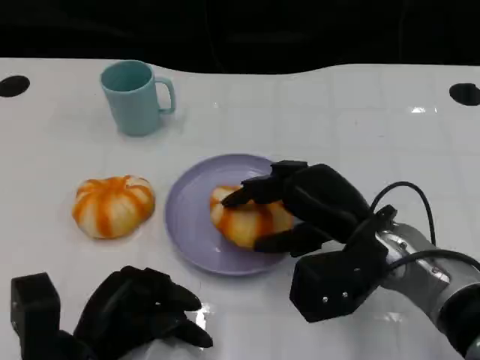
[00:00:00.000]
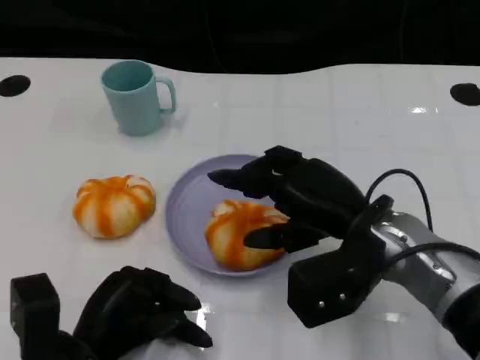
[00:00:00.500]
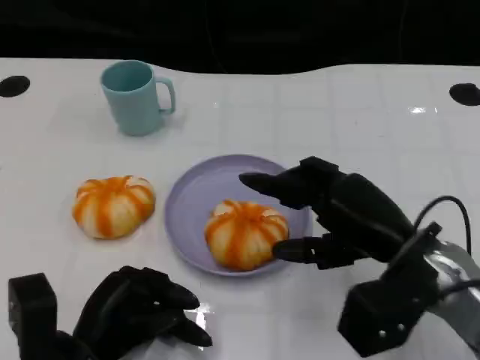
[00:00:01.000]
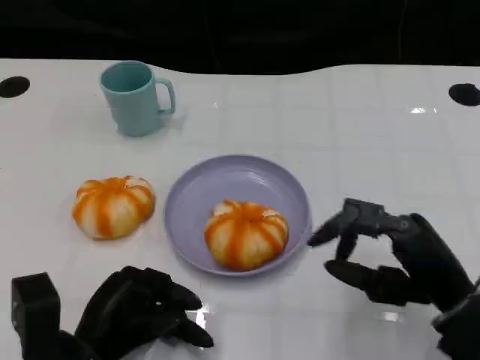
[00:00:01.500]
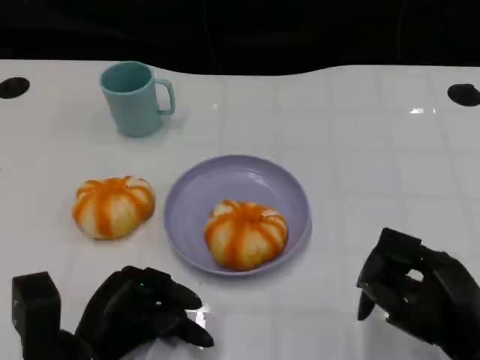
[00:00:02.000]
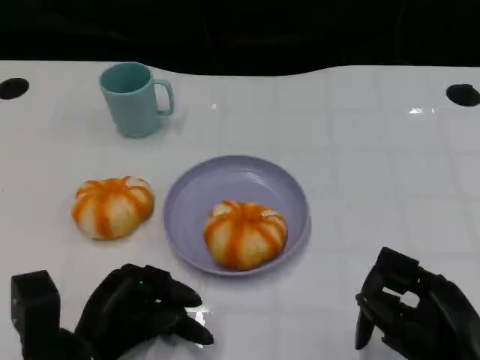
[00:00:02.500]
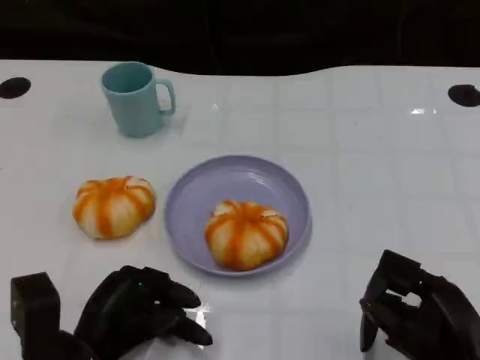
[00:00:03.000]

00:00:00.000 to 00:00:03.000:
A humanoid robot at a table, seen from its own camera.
Task of the whole recording: Grasp the bread from the table and place it into the plate.
00:00:00.000 to 00:00:01.500: The right hand moves to the right and backward, approximately 10 cm.
00:00:01.500 to 00:00:03.000: The right hand moves backward, roughly 5 cm.

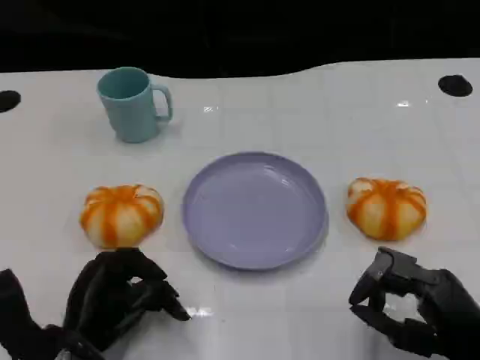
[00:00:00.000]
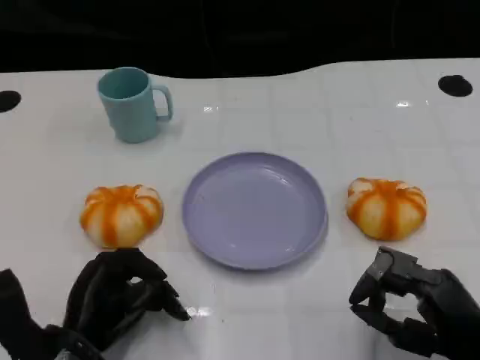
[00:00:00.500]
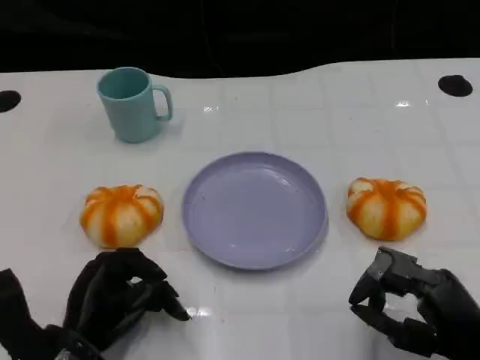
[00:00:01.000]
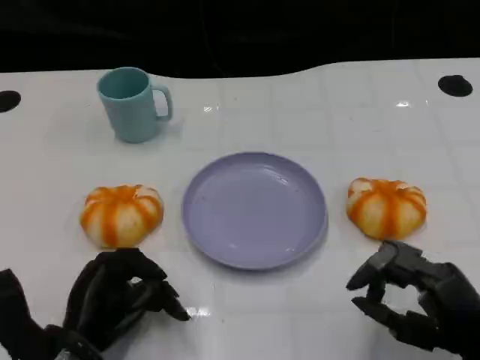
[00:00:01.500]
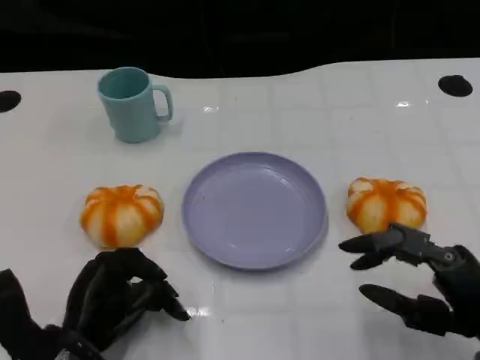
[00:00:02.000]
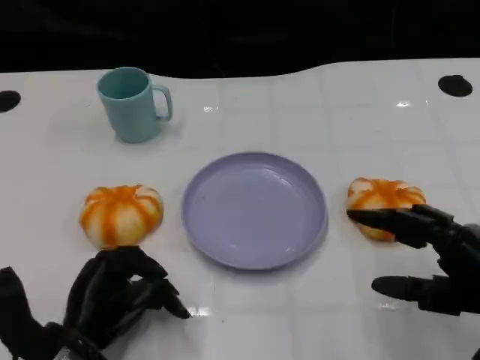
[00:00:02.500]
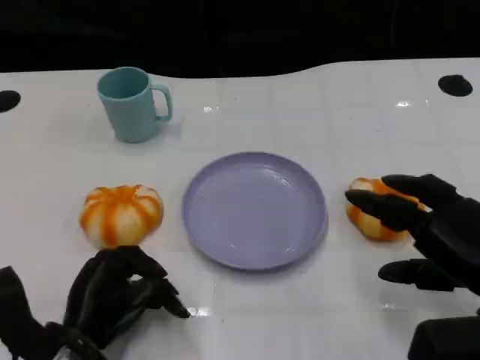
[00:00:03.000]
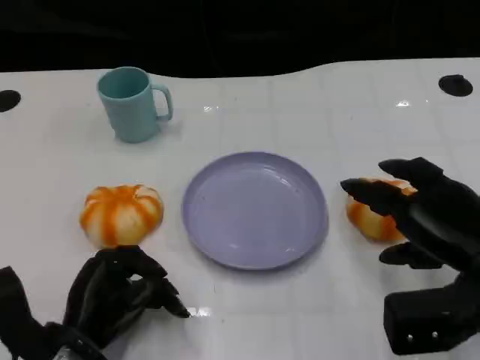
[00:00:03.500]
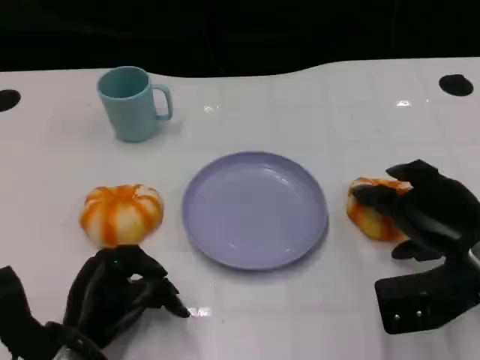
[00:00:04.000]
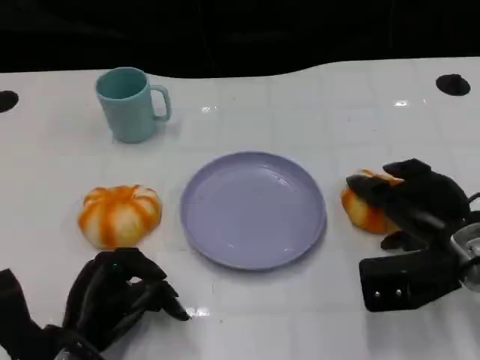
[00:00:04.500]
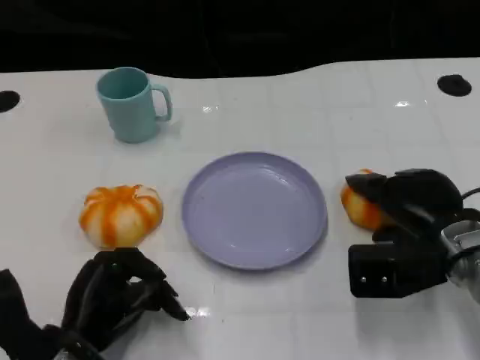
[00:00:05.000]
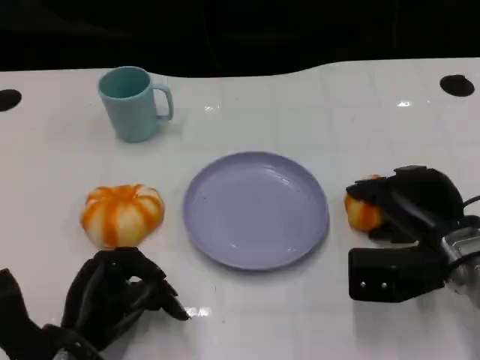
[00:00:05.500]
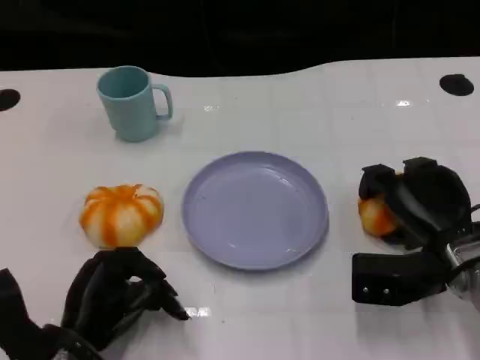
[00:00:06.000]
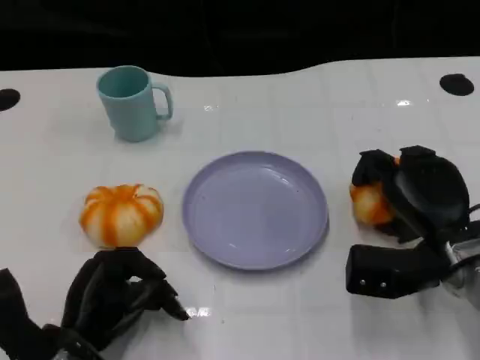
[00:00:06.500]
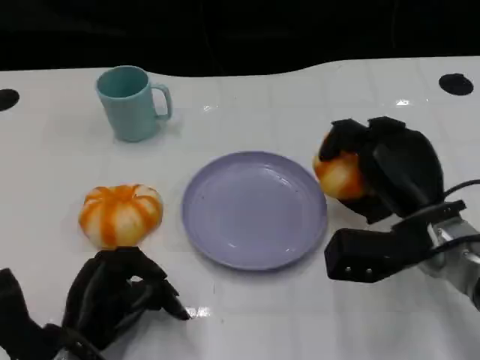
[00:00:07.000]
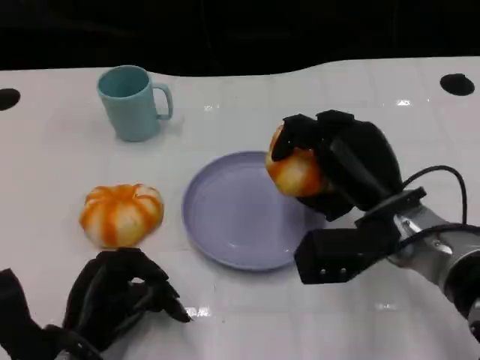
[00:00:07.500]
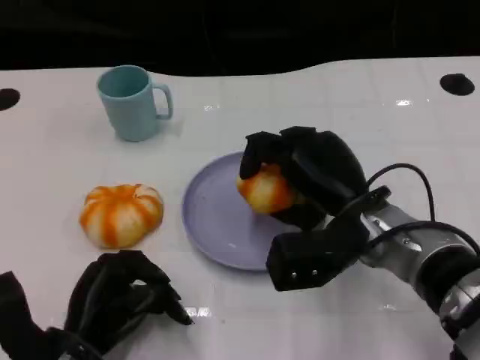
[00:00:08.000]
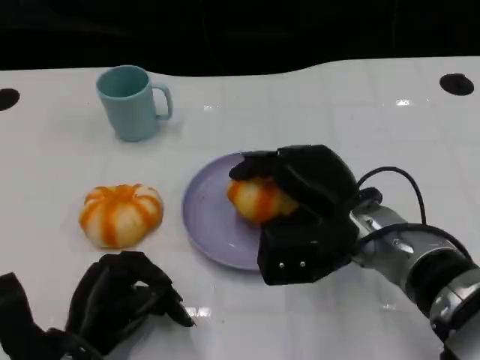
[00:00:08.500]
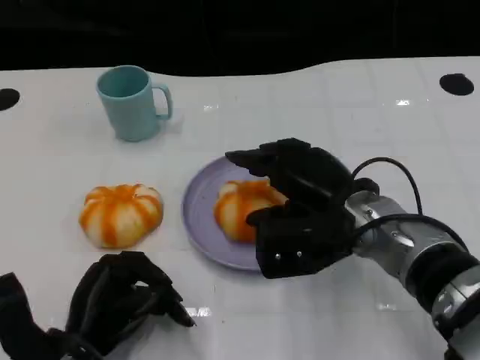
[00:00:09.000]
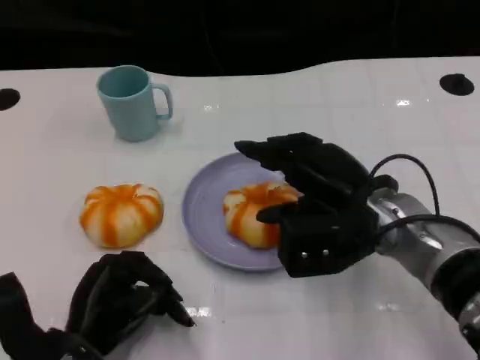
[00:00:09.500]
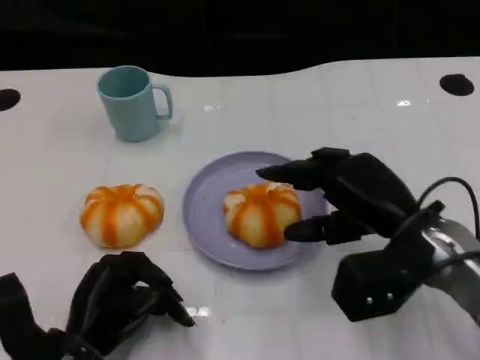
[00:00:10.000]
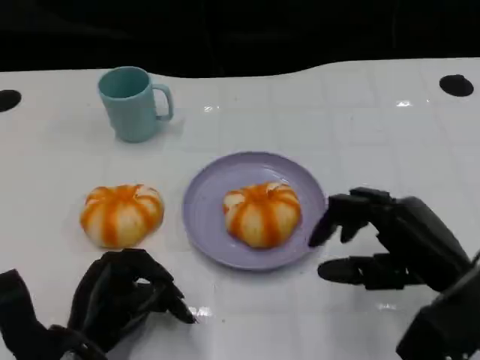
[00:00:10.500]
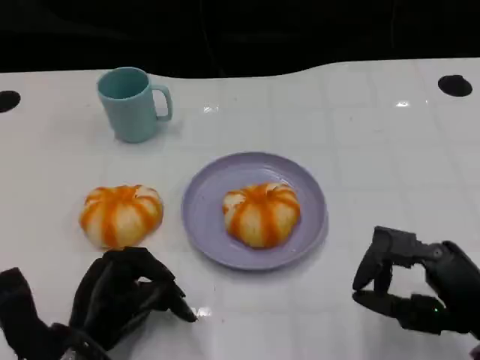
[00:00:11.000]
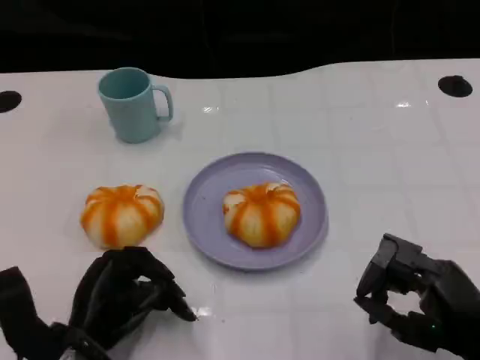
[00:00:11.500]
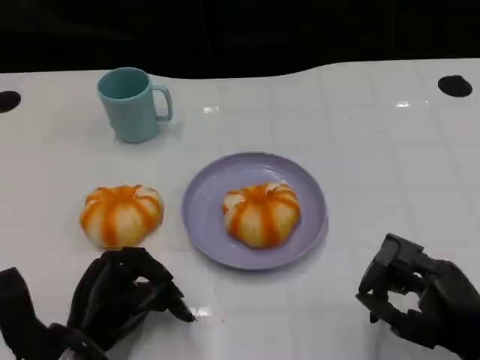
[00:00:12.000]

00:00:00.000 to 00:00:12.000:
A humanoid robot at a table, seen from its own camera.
Task of the whole recording: Grasp the bread from the table and place it into the plate.
00:00:00.000 to 00:00:02.000: The hands stay close to where they were, moving slightly.
00:00:02.000 to 00:00:04.000: The right hand shifts approximately 10 cm forward.
00:00:04.000 to 00:00:06.000: There are only small adjustments of the hands.
00:00:06.000 to 00:00:08.000: The right hand travels to the left by approximately 10 cm.
00:00:08.000 to 00:00:10.000: The right hand moves to the right, roughly 5 cm.
00:00:10.000 to 00:00:12.000: The right hand travels backward, to the right and downward by approximately 15 cm.

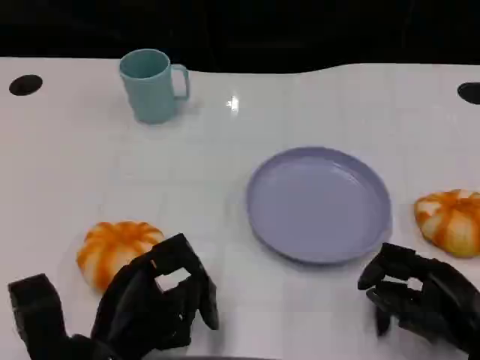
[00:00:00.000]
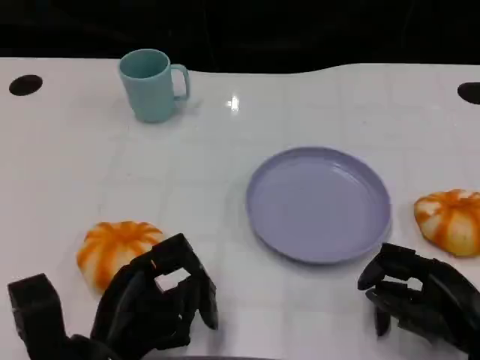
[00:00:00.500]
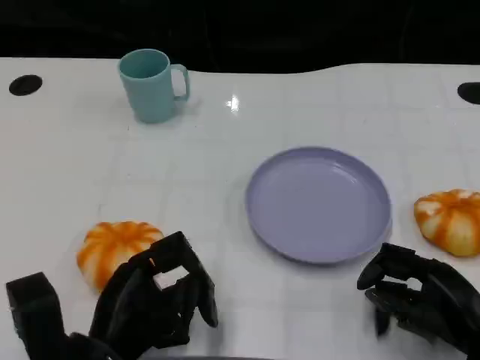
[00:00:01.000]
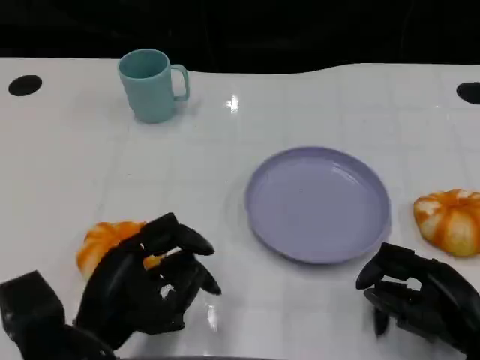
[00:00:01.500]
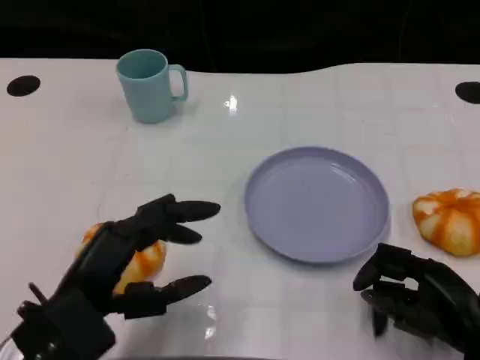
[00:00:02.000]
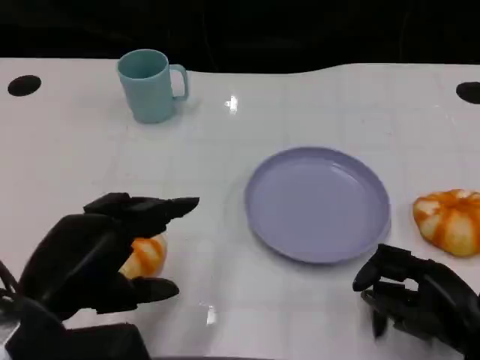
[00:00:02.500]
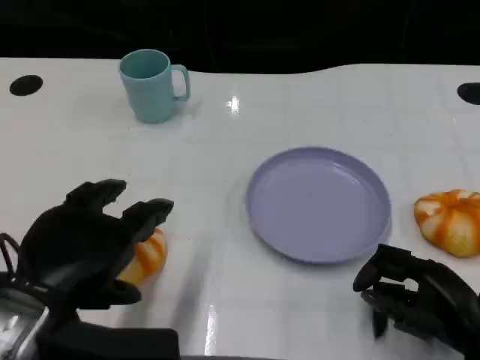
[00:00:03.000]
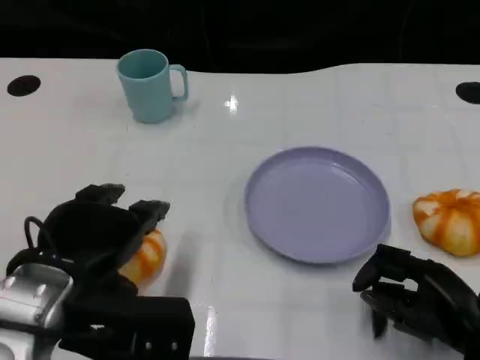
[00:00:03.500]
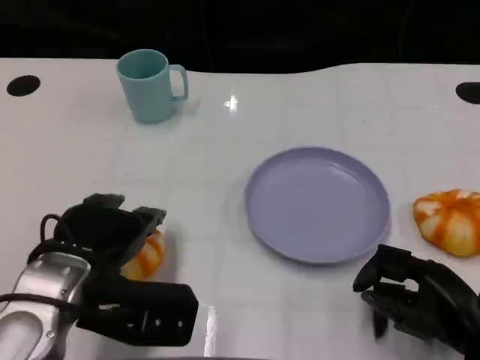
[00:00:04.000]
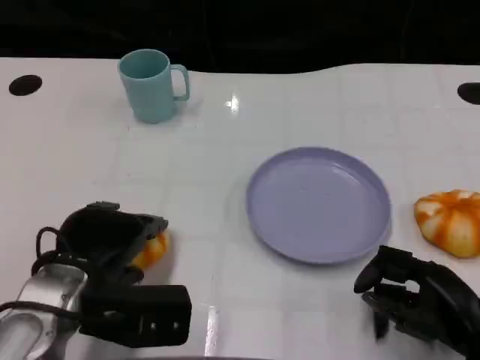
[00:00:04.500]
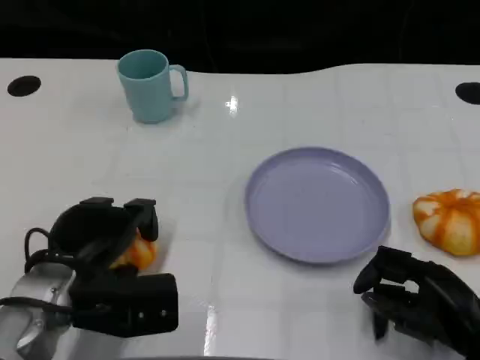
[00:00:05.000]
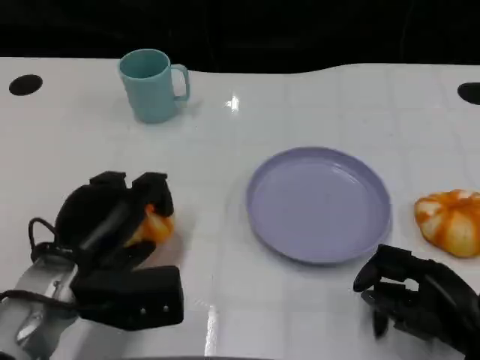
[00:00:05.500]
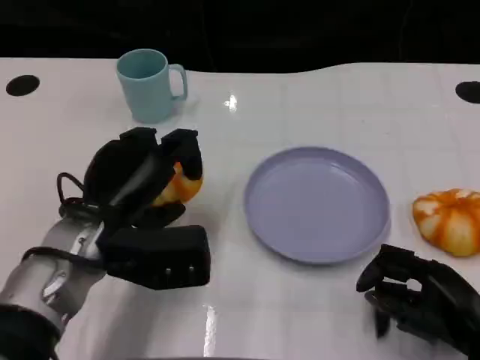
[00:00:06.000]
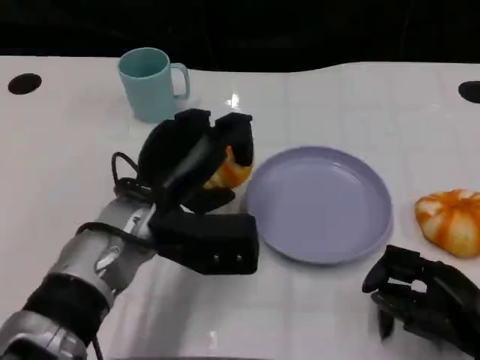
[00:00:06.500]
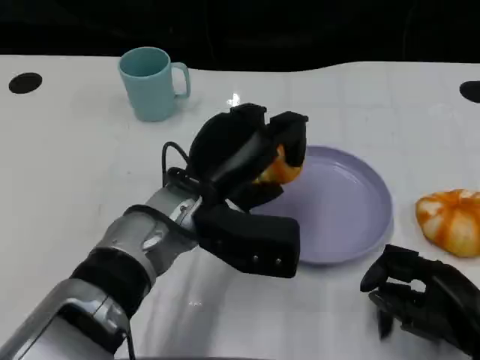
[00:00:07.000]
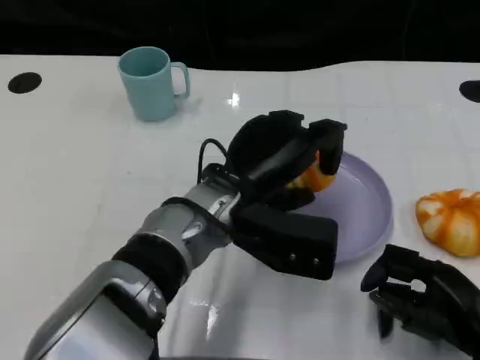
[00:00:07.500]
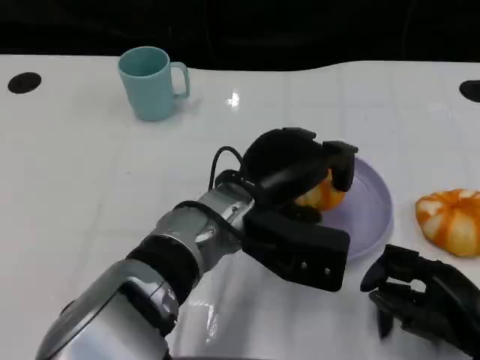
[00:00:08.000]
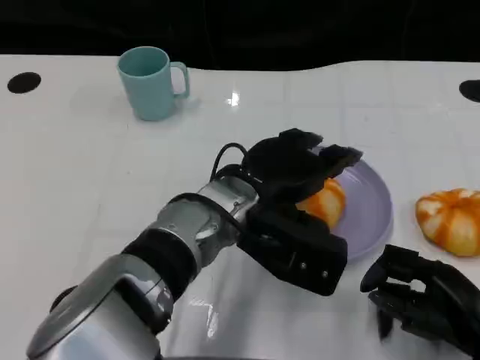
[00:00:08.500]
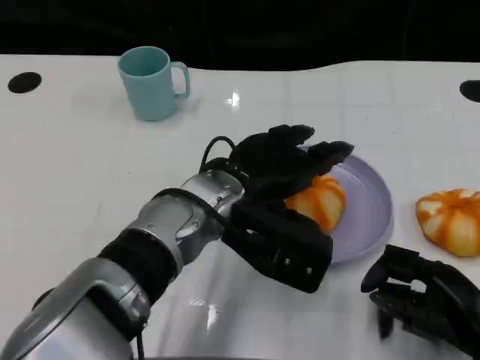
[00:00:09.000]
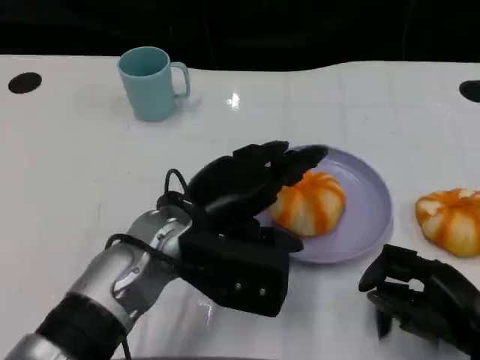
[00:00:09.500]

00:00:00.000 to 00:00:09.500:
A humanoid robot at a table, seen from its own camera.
Task of the whole recording: Grasp the bread from the table and place it into the plate.
00:00:00.000 to 00:00:02.000: The left hand moves upward, about 5 cm.
00:00:02.000 to 00:00:04.000: The left hand shifts about 5 cm forward.
00:00:05.500 to 00:00:07.500: The left hand goes roughly 15 cm to the right.
00:00:07.500 to 00:00:09.500: The left hand heads to the left, covering about 5 cm.

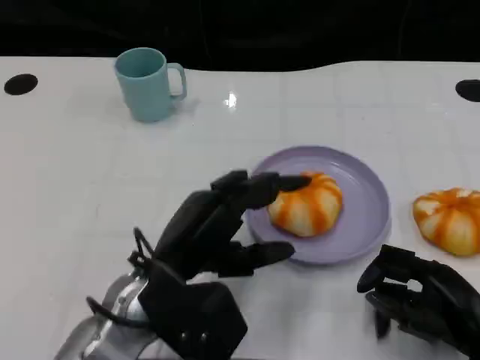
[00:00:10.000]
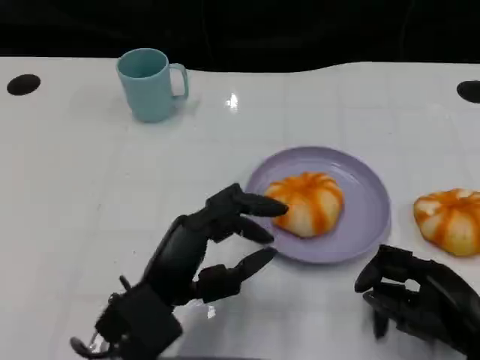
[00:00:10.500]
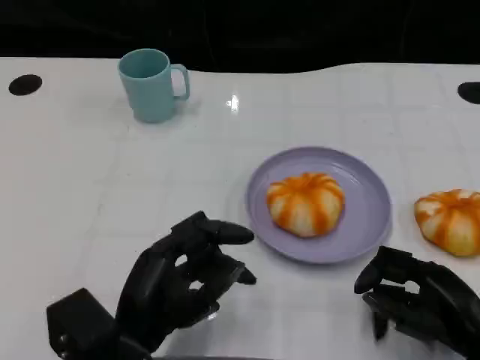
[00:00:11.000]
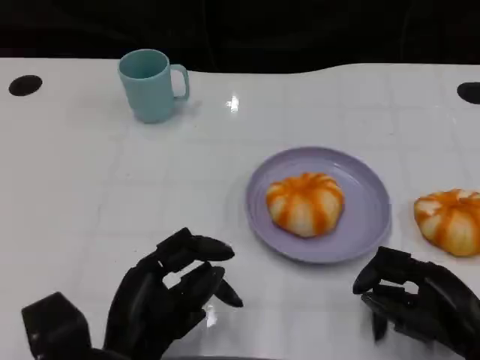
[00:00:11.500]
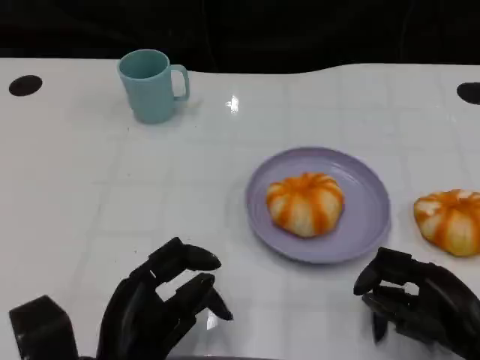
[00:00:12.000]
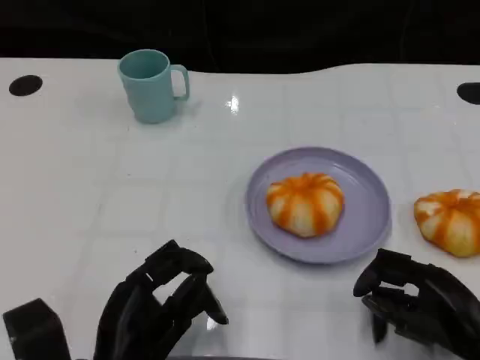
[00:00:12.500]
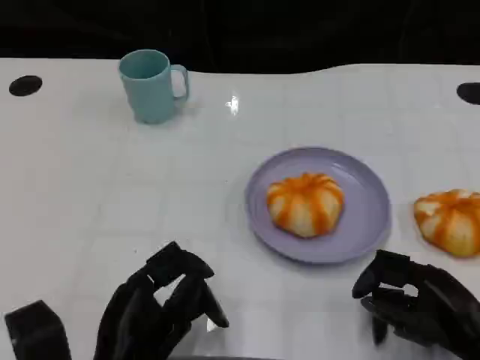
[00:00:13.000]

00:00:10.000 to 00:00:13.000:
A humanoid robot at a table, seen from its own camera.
Task of the whole recording: Grasp the bread from the table and place it into the plate.
00:00:10.000 to 00:00:11.500: The left hand goes roughly 5 cm backward.
00:00:11.500 to 00:00:13.000: The hands move only a little.
